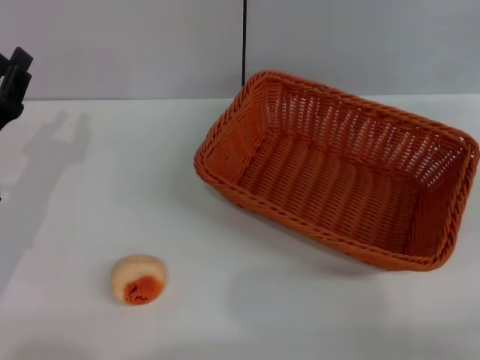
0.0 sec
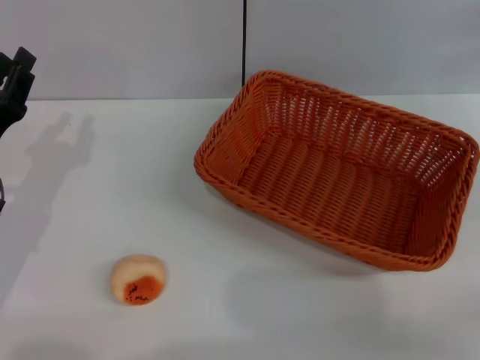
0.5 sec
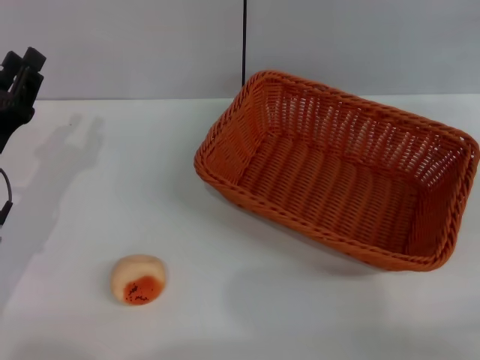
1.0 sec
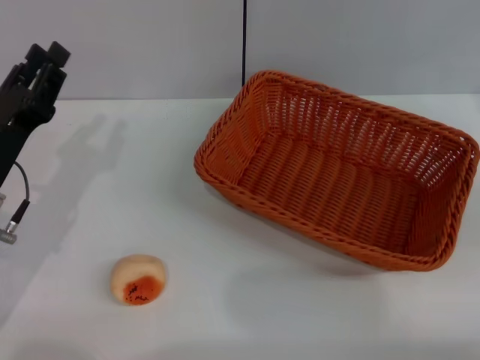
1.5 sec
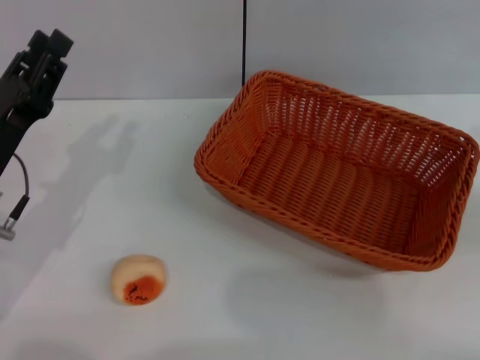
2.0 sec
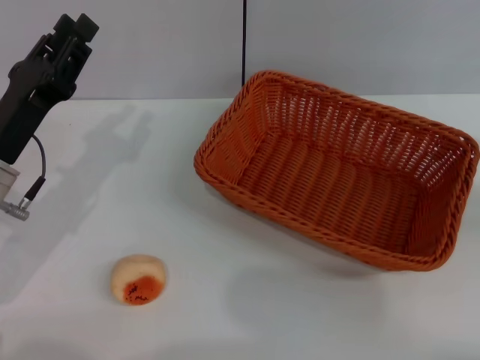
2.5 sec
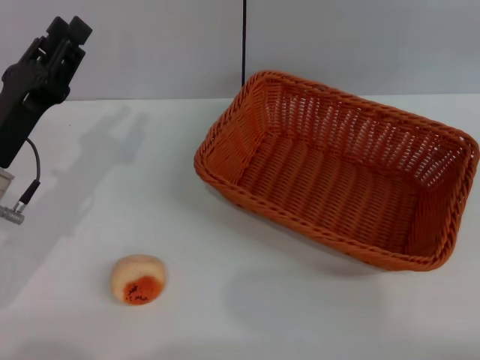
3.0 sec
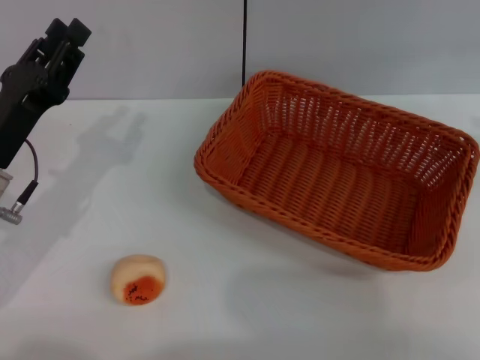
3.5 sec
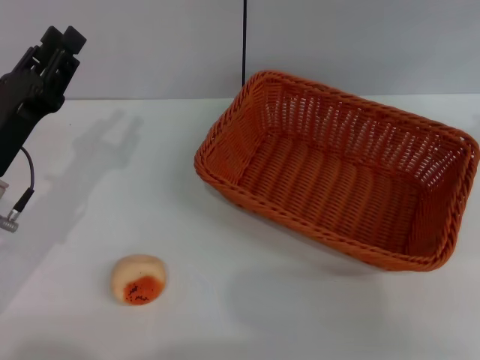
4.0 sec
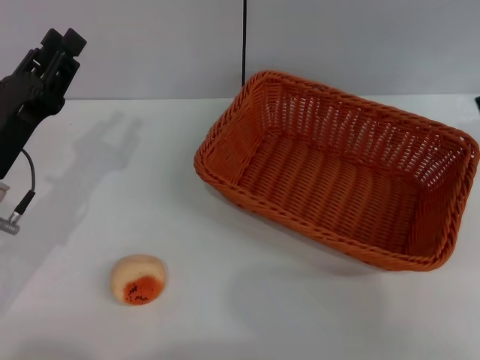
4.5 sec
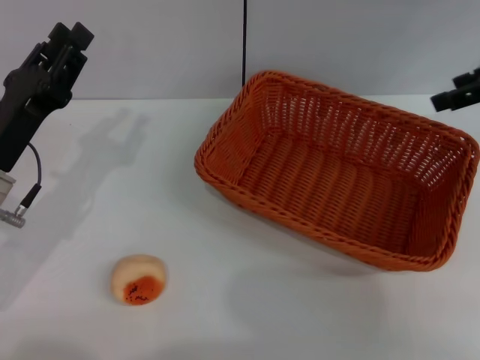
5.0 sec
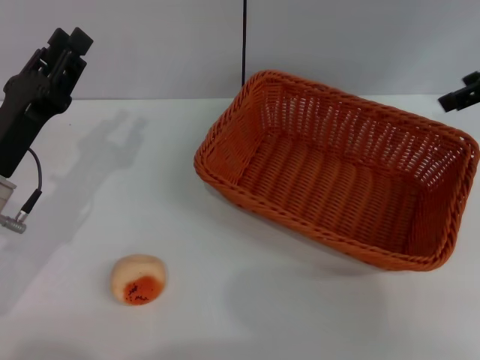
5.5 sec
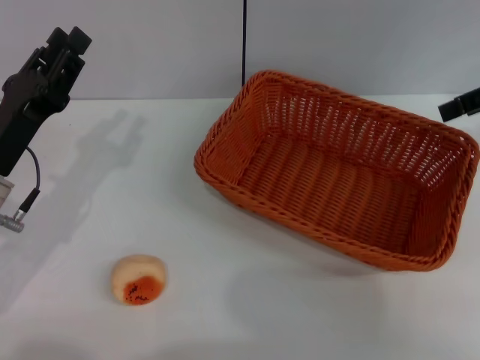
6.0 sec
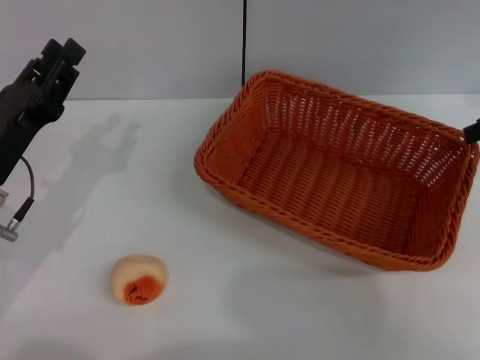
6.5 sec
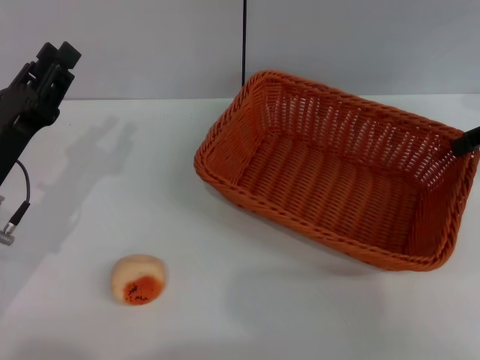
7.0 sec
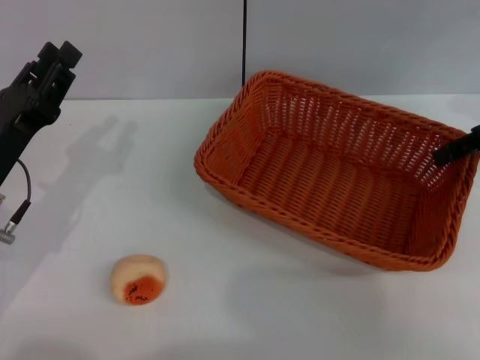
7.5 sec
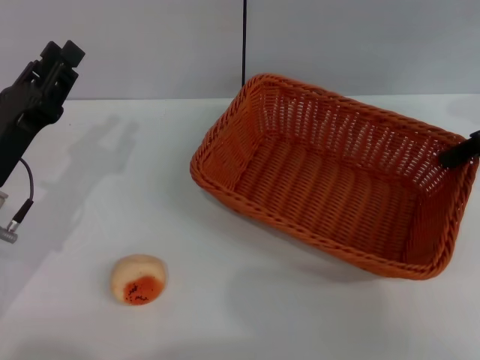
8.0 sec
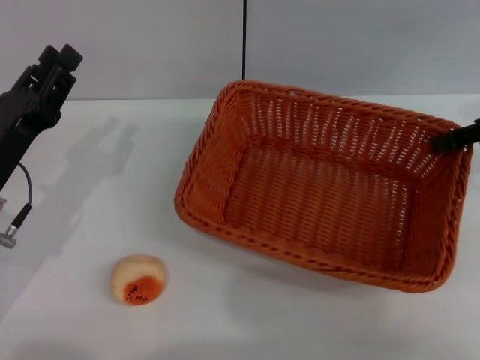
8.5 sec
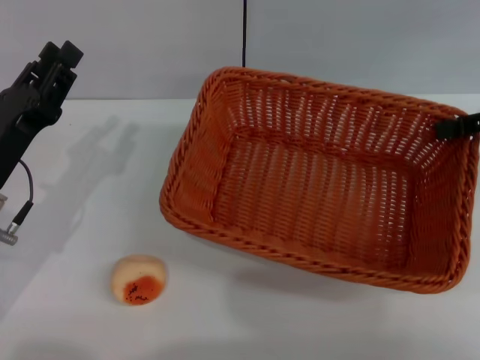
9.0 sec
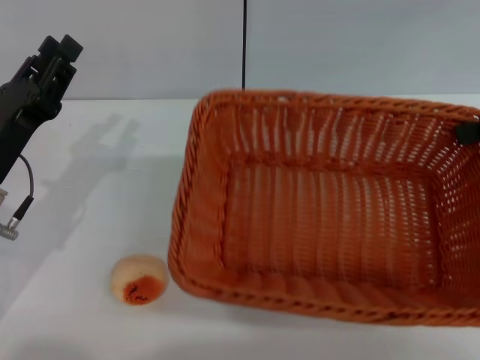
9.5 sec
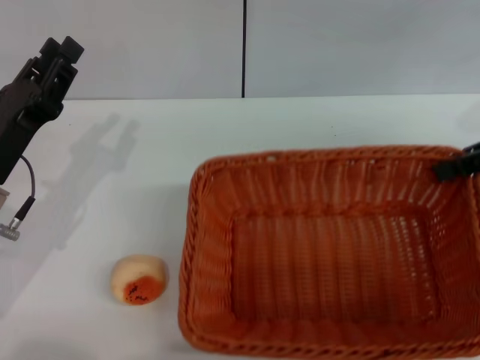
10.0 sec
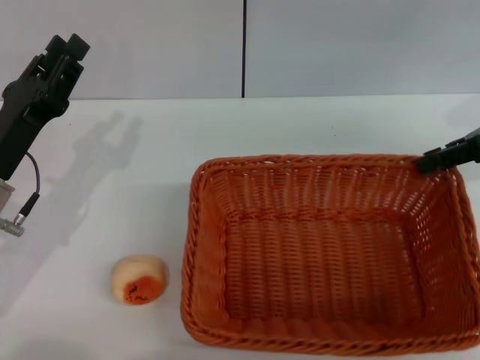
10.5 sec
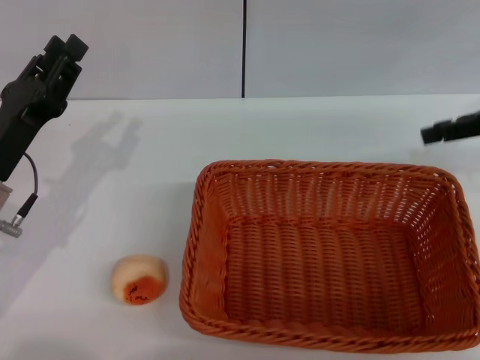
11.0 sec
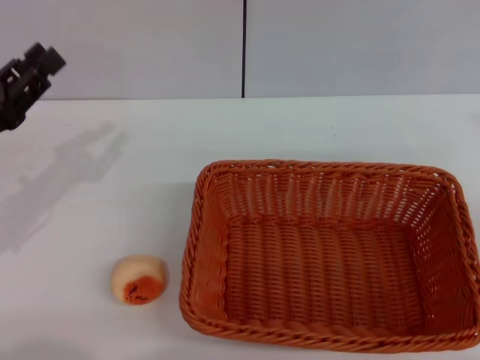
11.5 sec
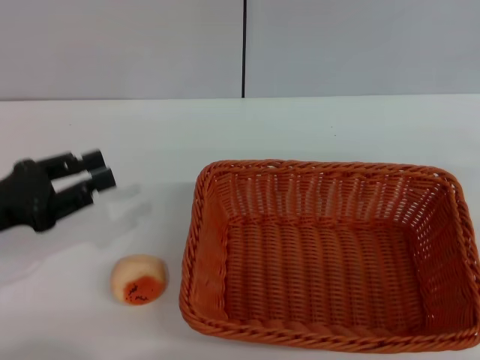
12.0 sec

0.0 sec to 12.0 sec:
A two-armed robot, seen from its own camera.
Step, 0.0 sec to 10.5 sec: Move the basket to the center of view with the right gripper.
6.0 sec to 8.0 sec: The right gripper travels downward by some 5 cm, and closes.
10.0 sec to 12.0 sec: The right gripper shifts some 15 cm backward, downward and to the right, and opens up. The left gripper goes roughly 5 cm to the left.

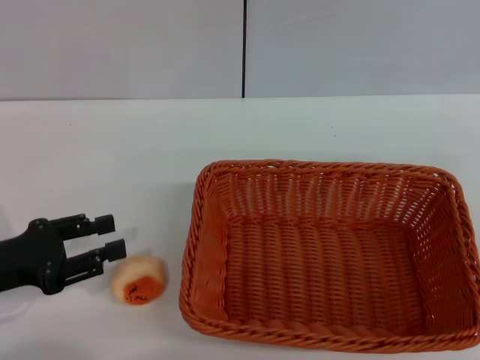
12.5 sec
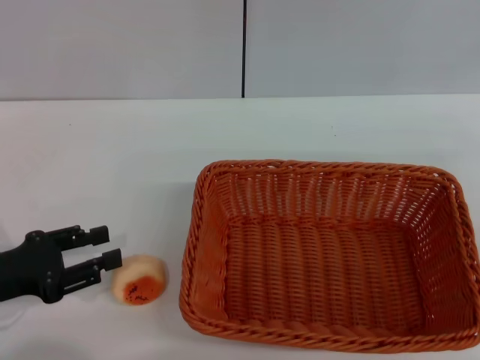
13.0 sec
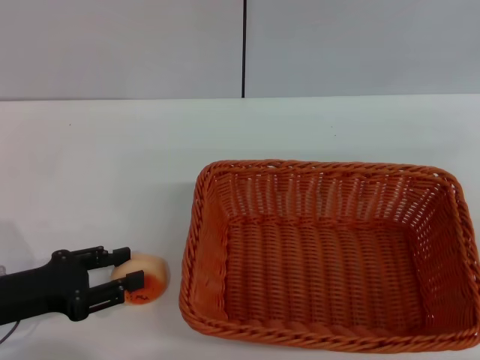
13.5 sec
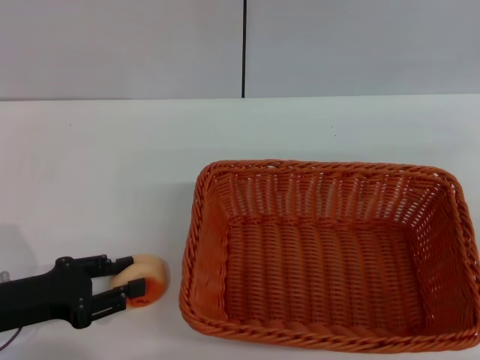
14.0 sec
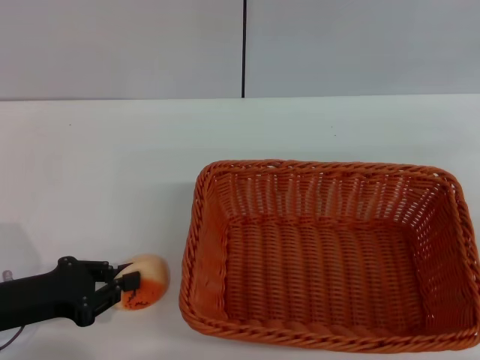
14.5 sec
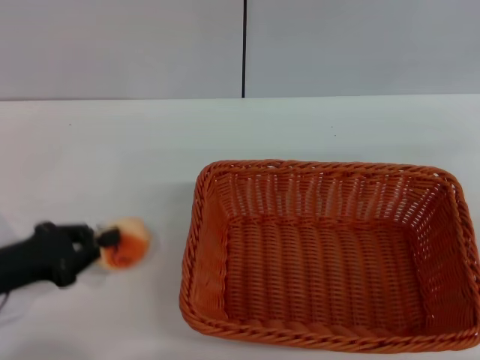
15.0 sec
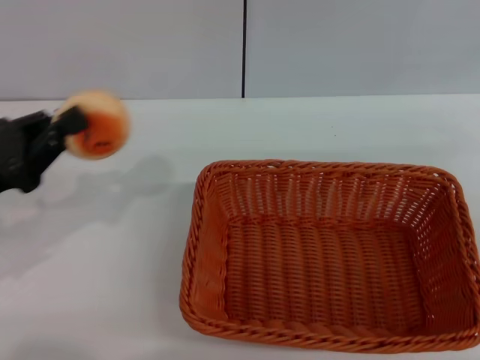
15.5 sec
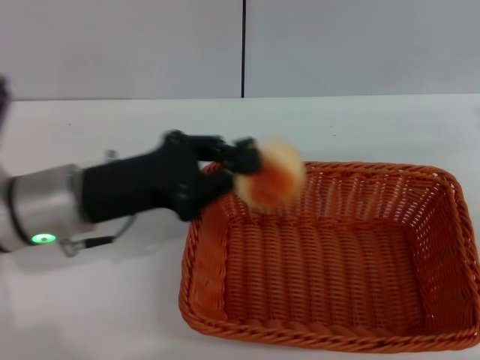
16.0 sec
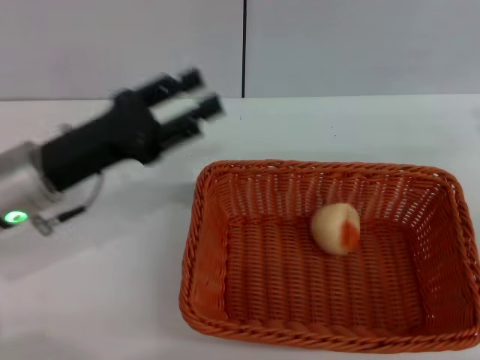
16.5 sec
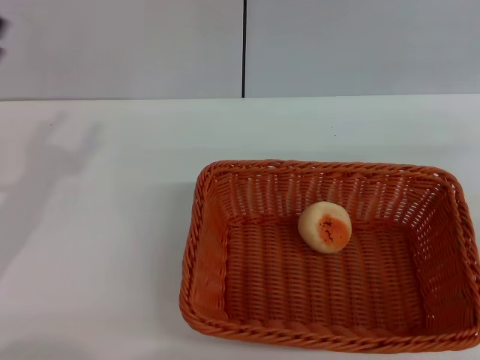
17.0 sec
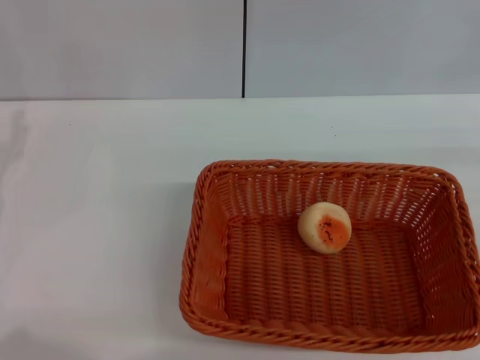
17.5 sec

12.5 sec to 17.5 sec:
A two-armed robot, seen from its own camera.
Step, 12.5 sec to 15.0 sec: Pick up the egg yolk pastry with the left gripper.
Step, 15.5 sec to 16.0 sec: Place the egg yolk pastry into the basket with the left gripper.
12.5 sec to 15.0 sec: The left gripper closes up.
15.0 sec to 17.5 sec: The left gripper goes to the right and returns, roughly 10 cm each way, and opens.

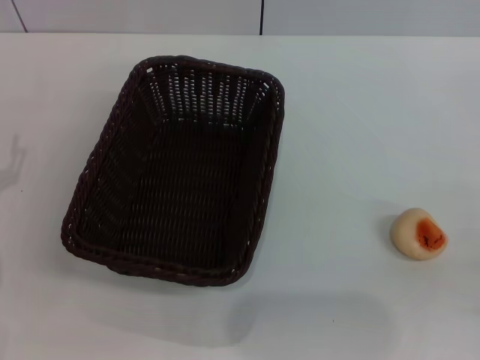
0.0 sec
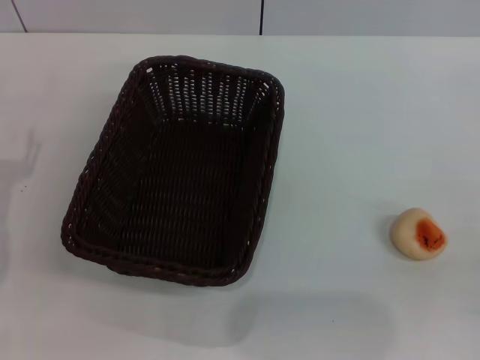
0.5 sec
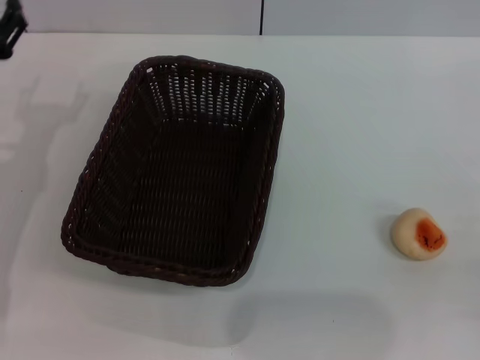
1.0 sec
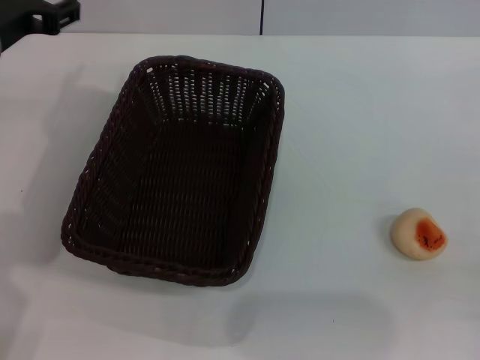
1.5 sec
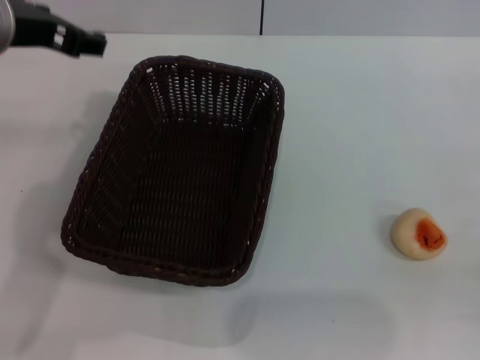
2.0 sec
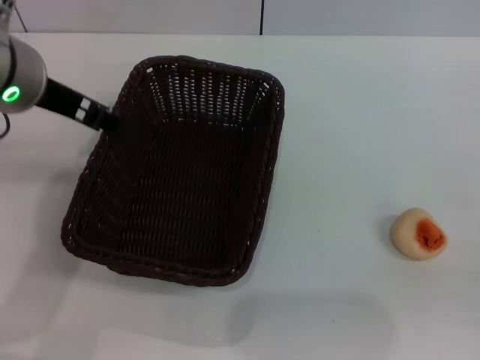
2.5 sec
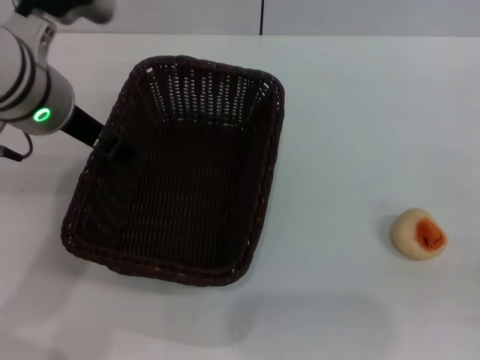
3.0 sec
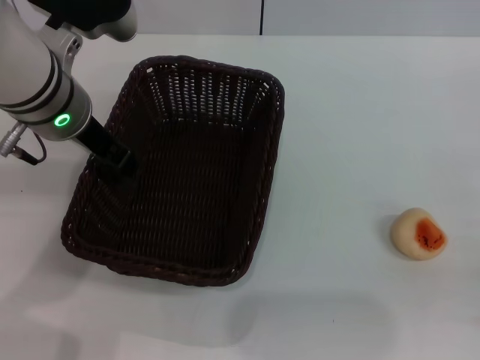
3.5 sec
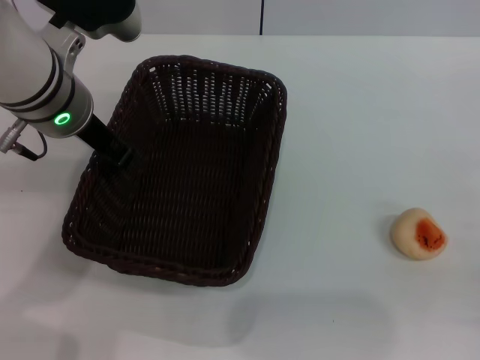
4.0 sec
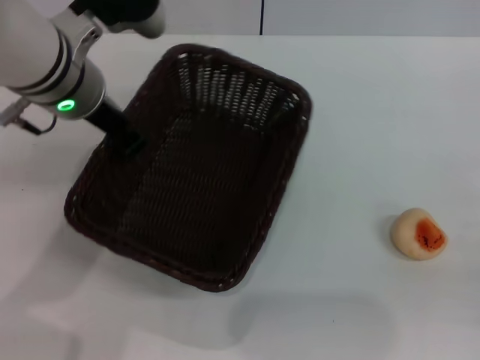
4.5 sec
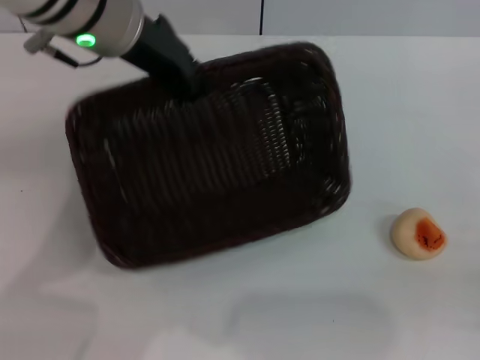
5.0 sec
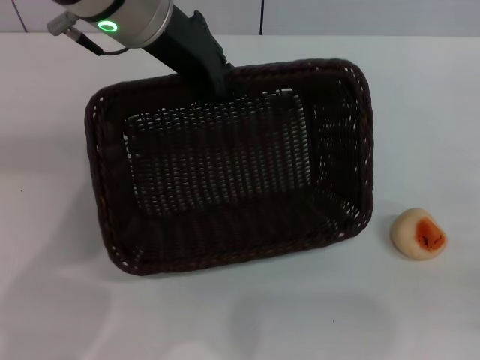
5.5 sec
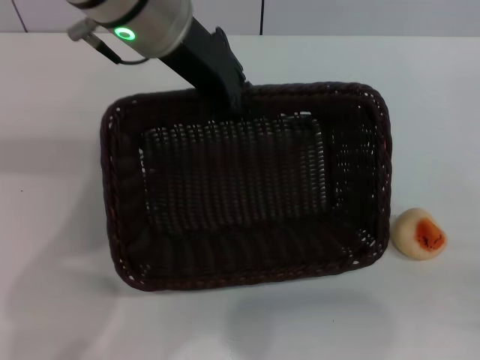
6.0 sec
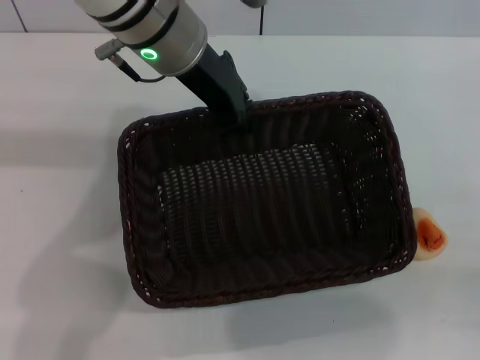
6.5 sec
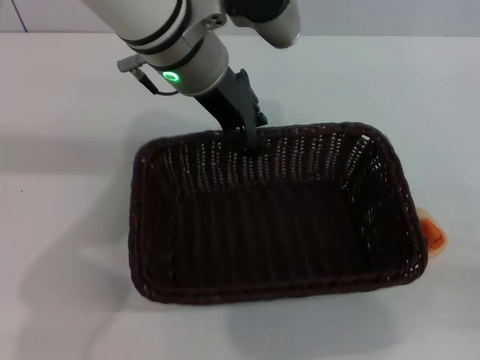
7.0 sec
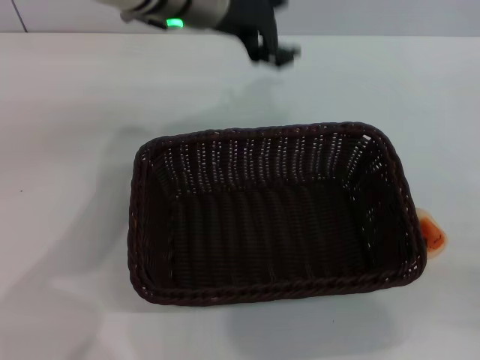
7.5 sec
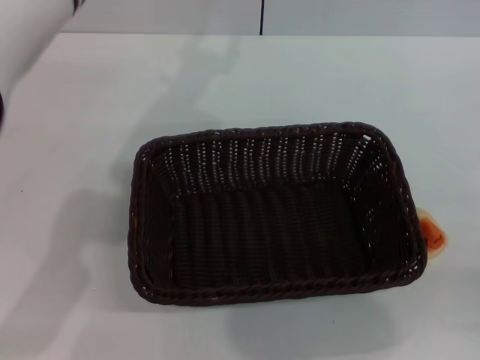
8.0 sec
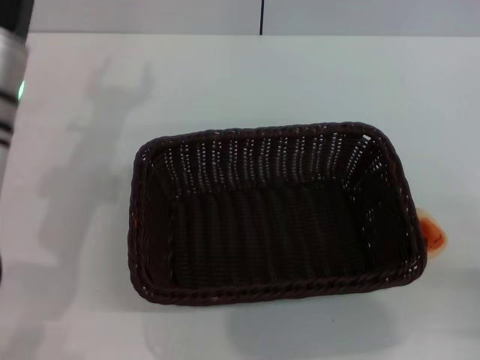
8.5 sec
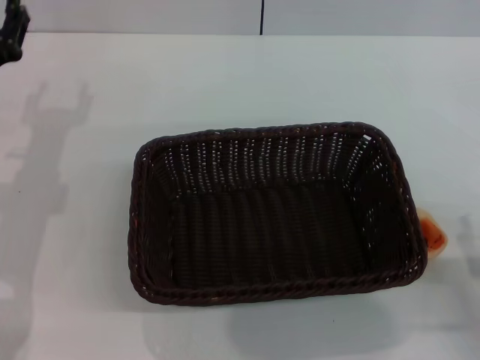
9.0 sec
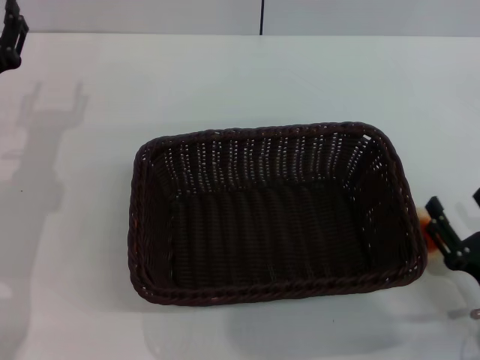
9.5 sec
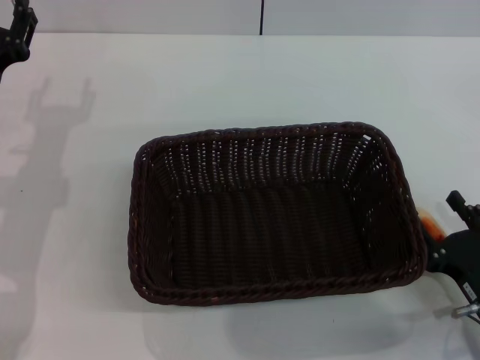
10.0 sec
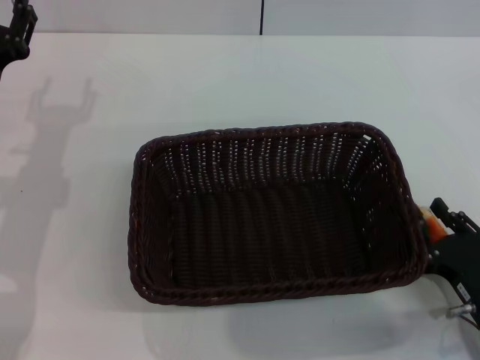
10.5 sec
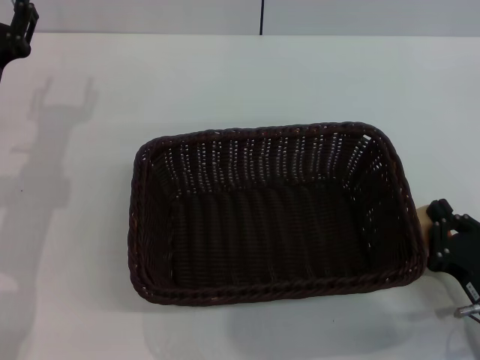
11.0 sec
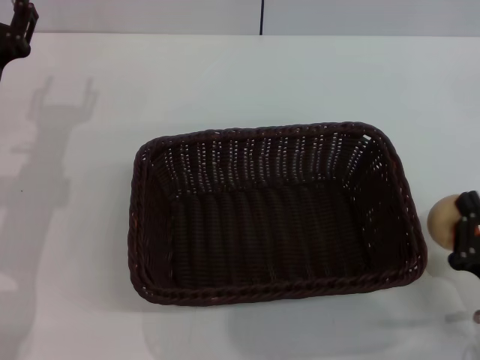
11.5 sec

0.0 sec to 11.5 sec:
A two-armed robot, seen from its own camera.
Step, 0.0 sec to 7.0 sec: Move the basket to the center of view with the left gripper.
Step, 7.5 sec to 11.5 sec: Pick up the egg yolk pastry with the right gripper.
0.0 sec to 2.0 sec: The left gripper travels upward, forward and to the right by approximately 25 cm.
2.0 sec to 4.0 sec: The left gripper moves downward, approximately 5 cm, and closes.
4.0 sec to 6.0 sec: The left gripper travels upward and to the right by some 10 cm.
6.0 sec to 7.5 sec: The left gripper opens its fingers.
7.5 sec to 9.5 sec: The left gripper shifts approximately 25 cm to the left, downward and backward, while the right gripper travels to the left by approximately 5 cm.
9.5 sec to 11.5 sec: The right gripper closes up.
